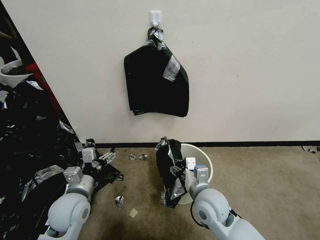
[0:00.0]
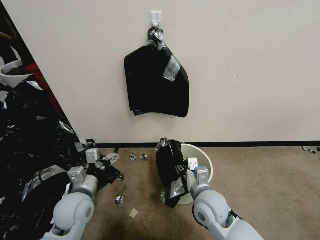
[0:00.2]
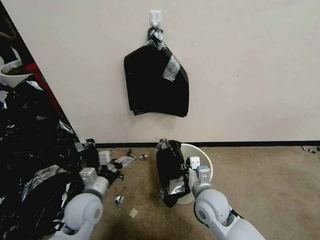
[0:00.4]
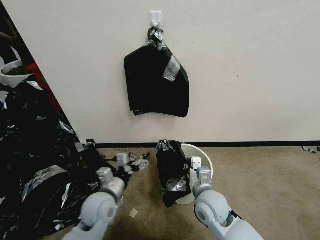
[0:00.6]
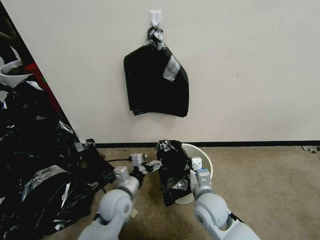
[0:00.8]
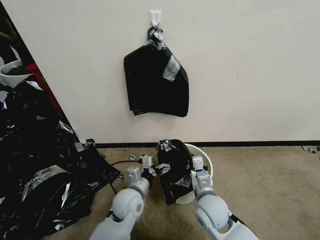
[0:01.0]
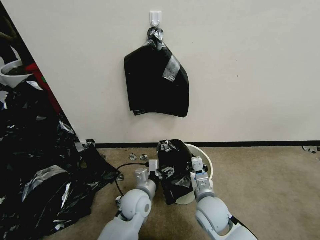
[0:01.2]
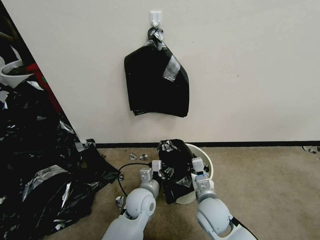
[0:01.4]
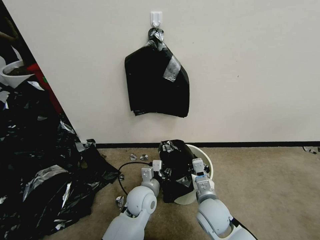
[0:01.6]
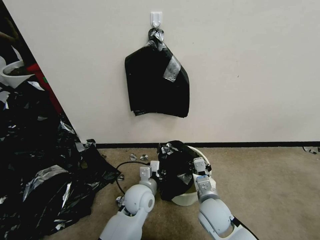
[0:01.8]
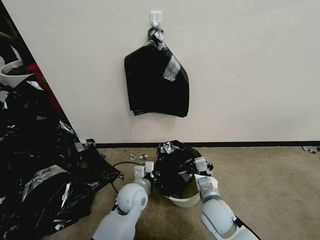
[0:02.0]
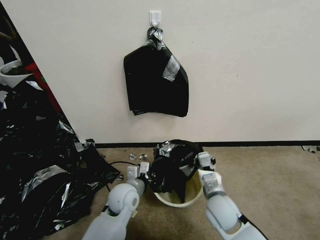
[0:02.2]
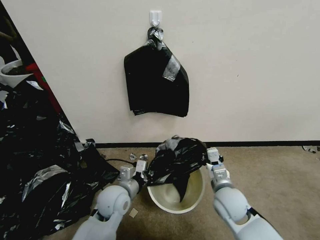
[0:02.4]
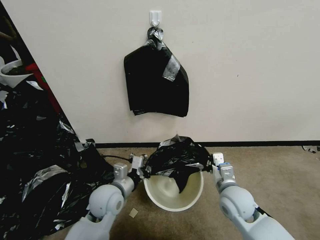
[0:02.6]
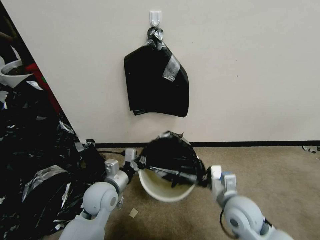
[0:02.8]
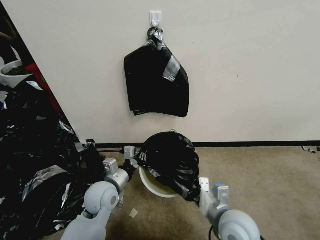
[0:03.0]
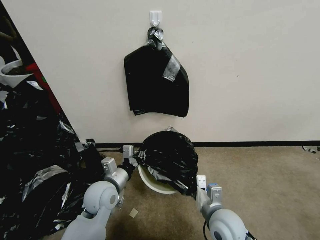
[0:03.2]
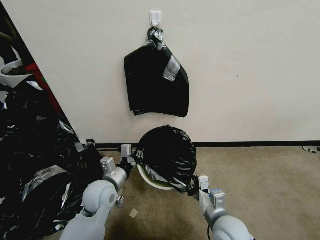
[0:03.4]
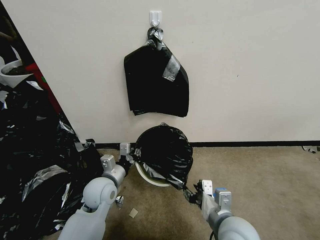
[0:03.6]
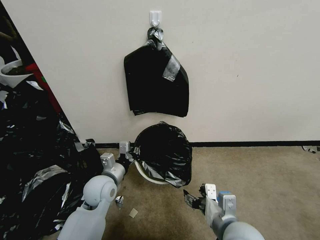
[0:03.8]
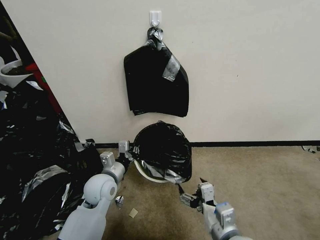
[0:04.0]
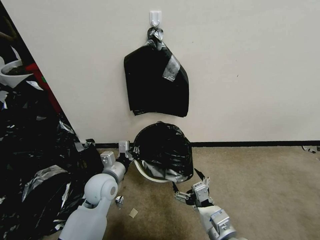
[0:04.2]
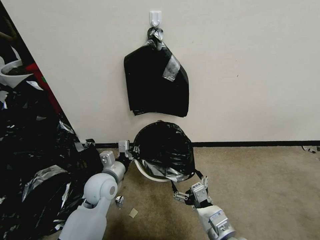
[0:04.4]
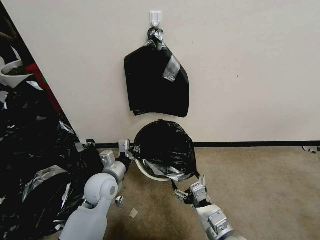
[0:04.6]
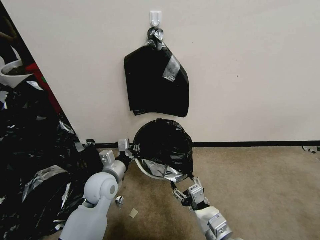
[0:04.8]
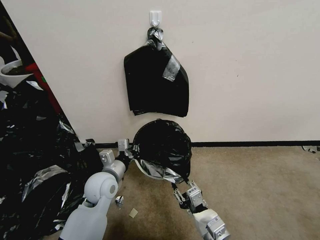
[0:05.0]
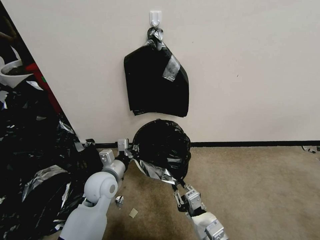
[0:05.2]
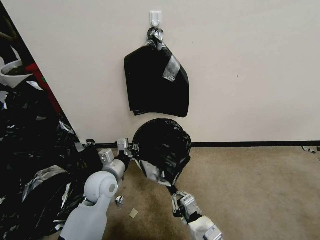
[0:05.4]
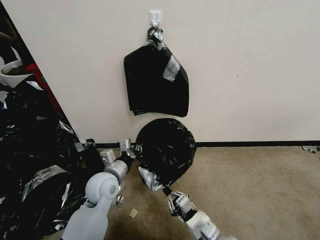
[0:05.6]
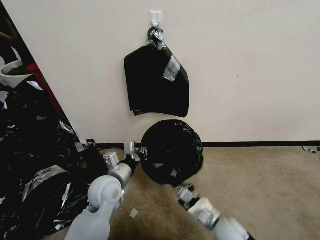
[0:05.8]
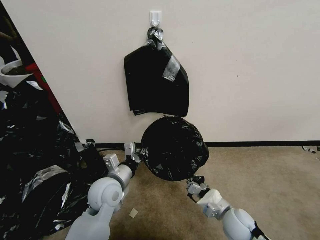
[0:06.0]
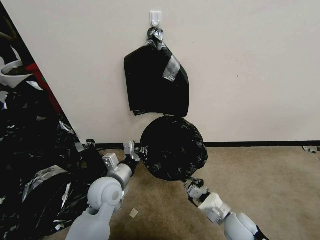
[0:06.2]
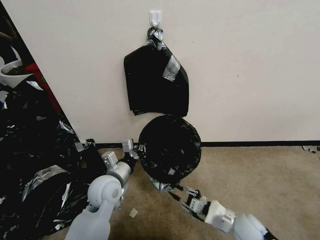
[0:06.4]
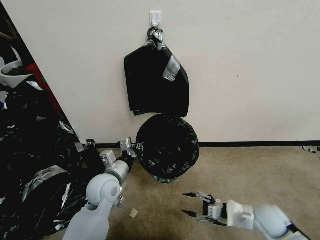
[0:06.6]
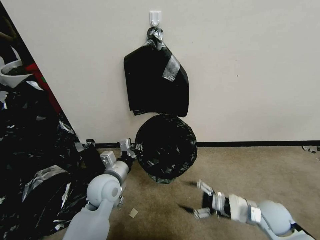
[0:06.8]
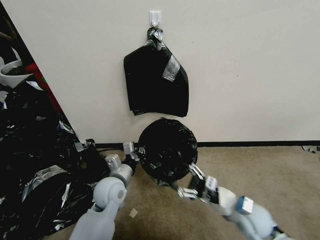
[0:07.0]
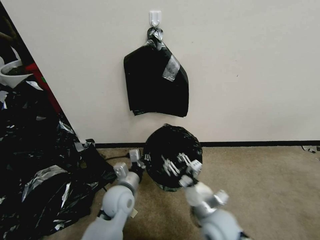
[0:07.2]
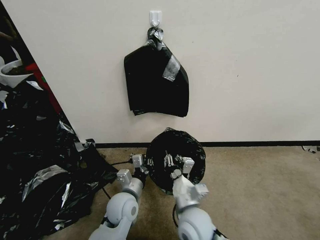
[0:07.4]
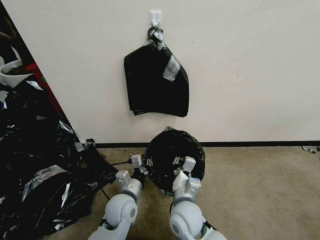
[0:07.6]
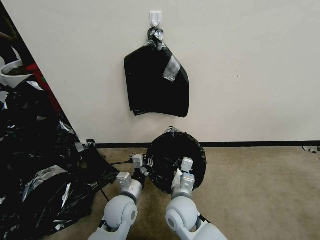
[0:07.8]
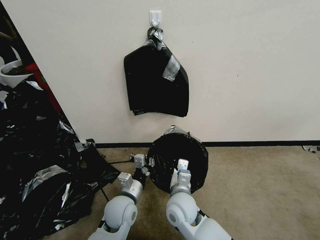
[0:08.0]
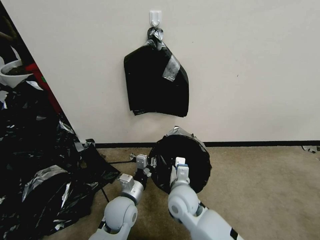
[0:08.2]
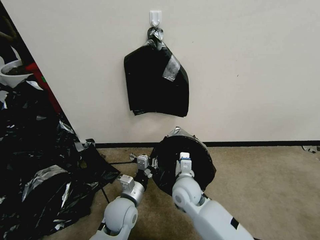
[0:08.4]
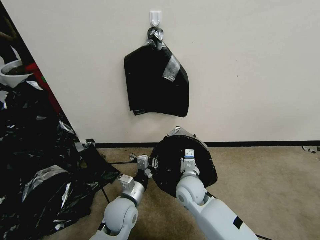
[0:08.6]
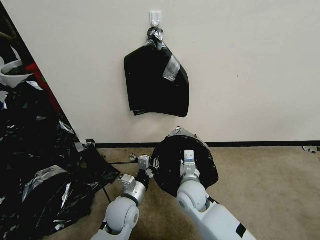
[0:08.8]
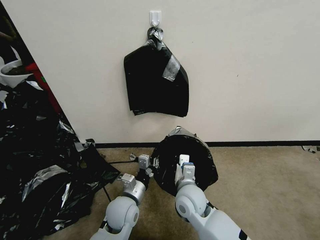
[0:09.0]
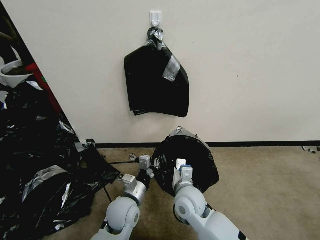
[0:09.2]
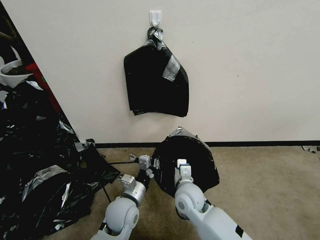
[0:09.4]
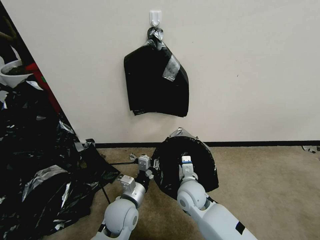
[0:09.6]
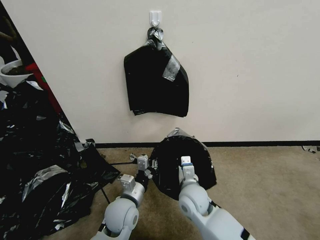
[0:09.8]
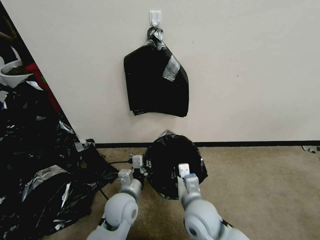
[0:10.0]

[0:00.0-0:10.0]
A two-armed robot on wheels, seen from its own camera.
Task of the whole recording: Place a trash bag onto the trash bin.
0:00.0 to 0:01.4: The right gripper moves downward, about 5 cm, and closes up; the left gripper goes approximately 20 cm to the right and downward, and closes.
0:01.4 to 0:02.8: The left gripper is displaced to the left and upward by some 15 cm, and closes. Meanwhile the right gripper heads to the right and upward, covering about 10 cm.
0:02.8 to 0:04.2: The right gripper goes roughly 10 cm backward, and opens up.
0:04.2 to 0:05.8: The right gripper moves downward and forward, about 15 cm, and closes.
0:05.8 to 0:07.2: The right gripper is displaced upward by approximately 5 cm, moves some 15 cm to the right and comes back, and opens. Meanwhile the left gripper moves downward, approximately 5 cm.
0:07.2 to 0:08.6: The right gripper travels forward and to the left by about 15 cm, and closes up.
0:08.6 to 0:10.0: The right gripper heads backward, covering roughly 10 cm.

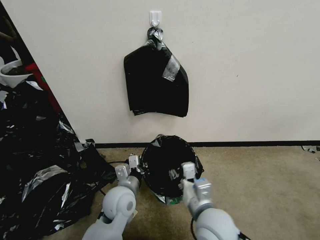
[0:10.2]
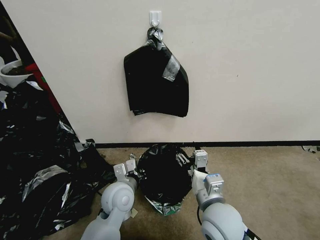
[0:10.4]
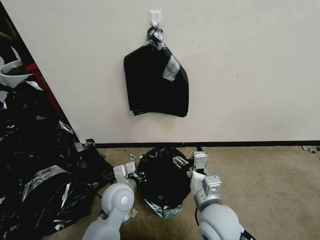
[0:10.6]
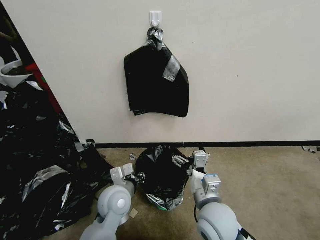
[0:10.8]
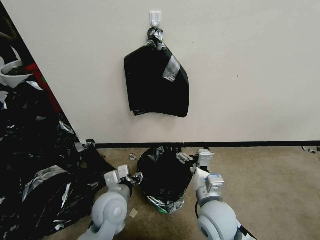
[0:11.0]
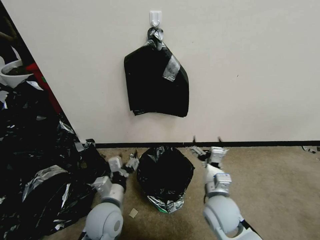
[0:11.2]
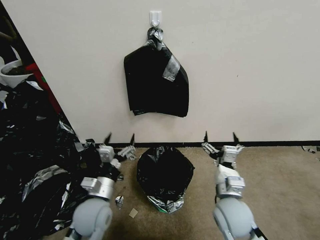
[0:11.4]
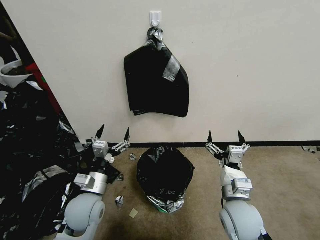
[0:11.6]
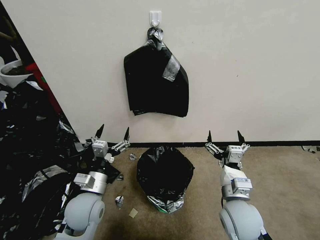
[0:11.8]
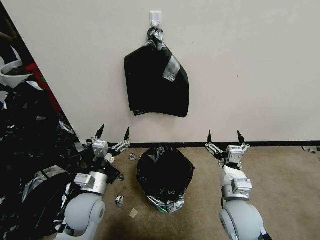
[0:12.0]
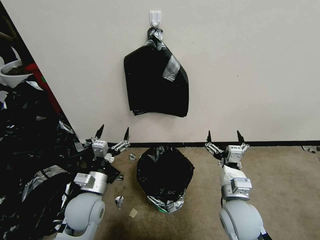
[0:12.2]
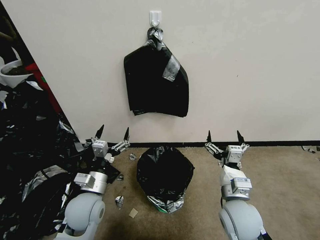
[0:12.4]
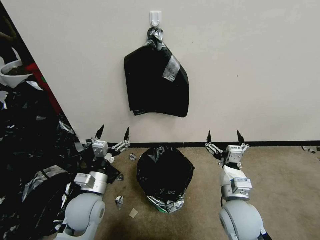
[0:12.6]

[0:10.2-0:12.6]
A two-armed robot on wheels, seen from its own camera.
Task of the whole recording: Place a trash bag onto the trash bin.
0:10.2 to 0:11.4: The left gripper goes some 5 cm to the left, and opens its fingers. The right gripper shifts roughly 5 cm to the right, and opens.
0:11.4 to 0:12.6: The grippers move only a little.
